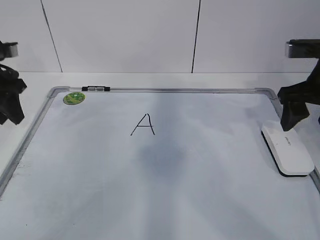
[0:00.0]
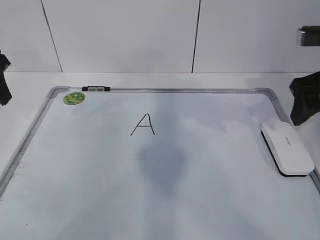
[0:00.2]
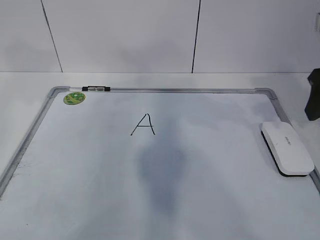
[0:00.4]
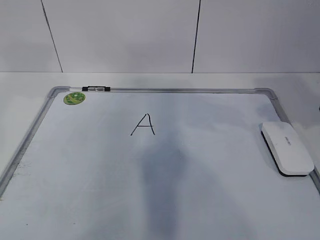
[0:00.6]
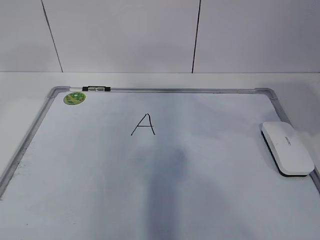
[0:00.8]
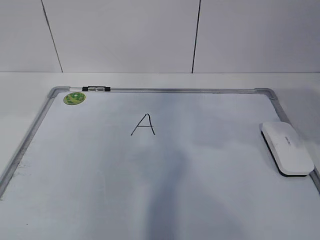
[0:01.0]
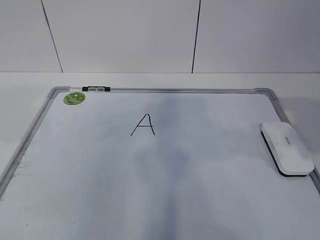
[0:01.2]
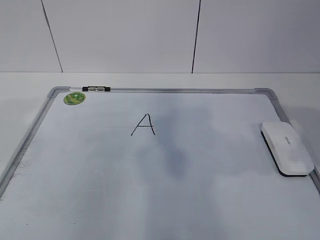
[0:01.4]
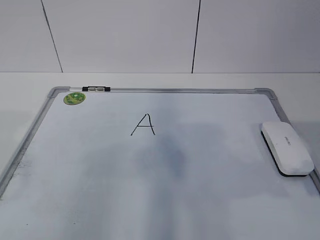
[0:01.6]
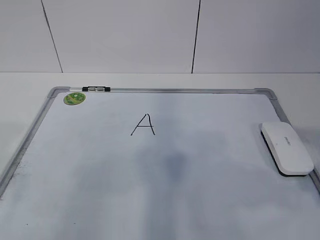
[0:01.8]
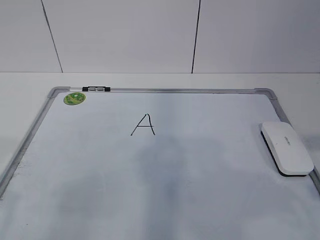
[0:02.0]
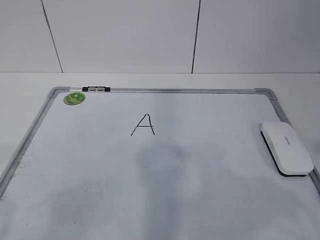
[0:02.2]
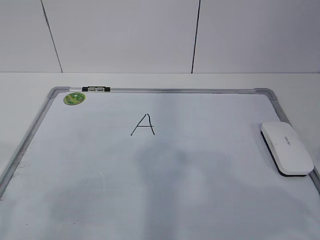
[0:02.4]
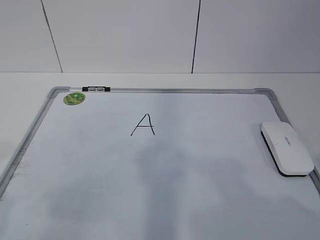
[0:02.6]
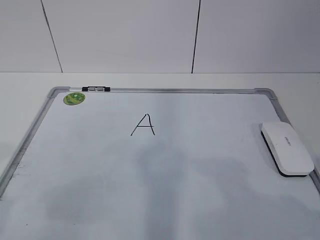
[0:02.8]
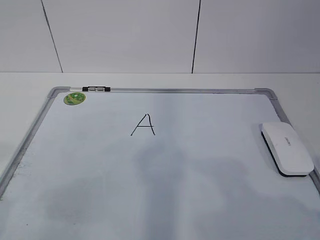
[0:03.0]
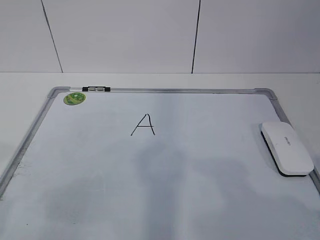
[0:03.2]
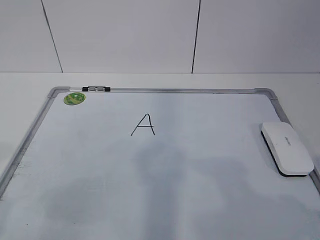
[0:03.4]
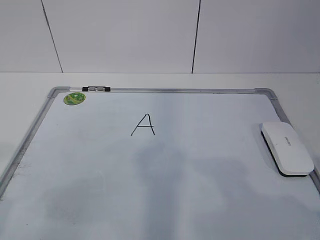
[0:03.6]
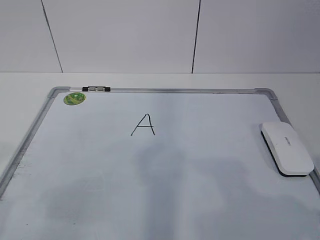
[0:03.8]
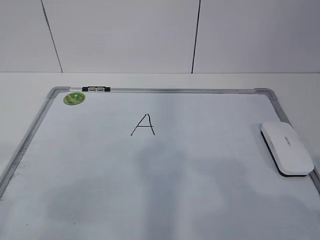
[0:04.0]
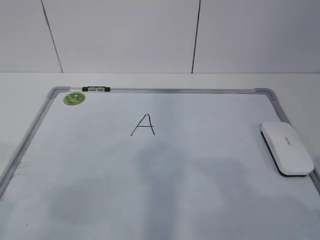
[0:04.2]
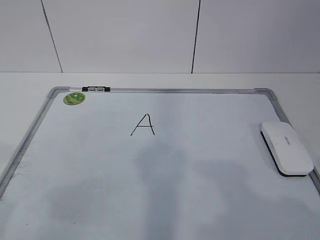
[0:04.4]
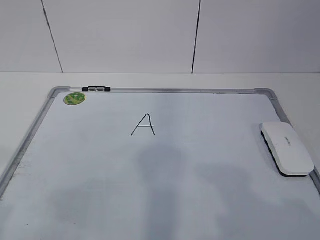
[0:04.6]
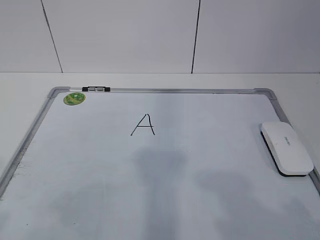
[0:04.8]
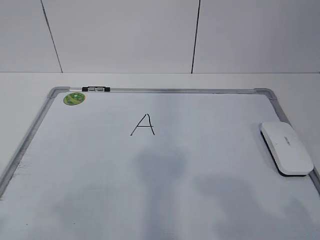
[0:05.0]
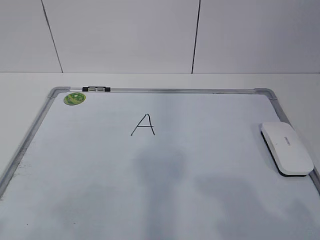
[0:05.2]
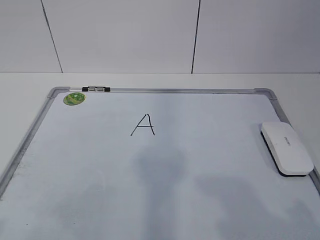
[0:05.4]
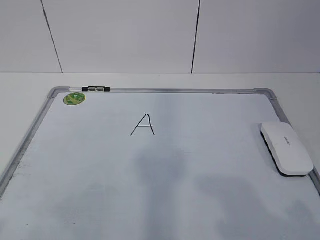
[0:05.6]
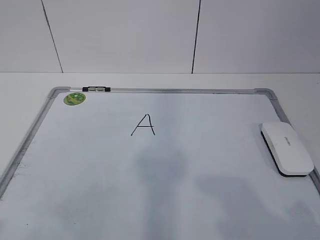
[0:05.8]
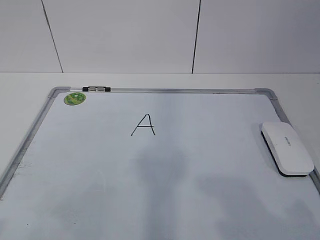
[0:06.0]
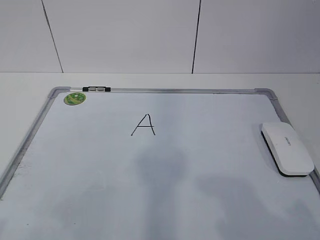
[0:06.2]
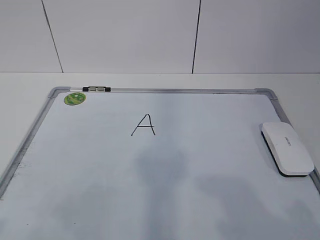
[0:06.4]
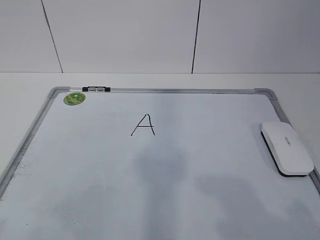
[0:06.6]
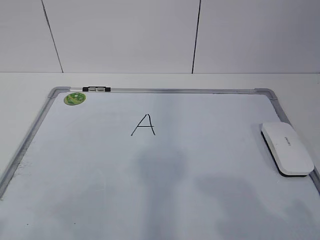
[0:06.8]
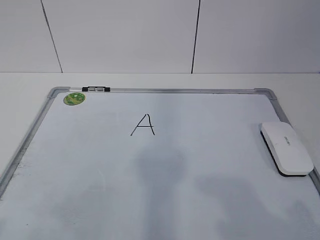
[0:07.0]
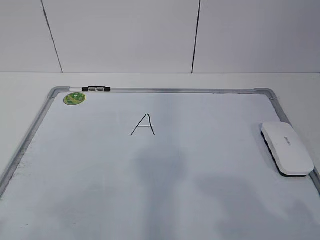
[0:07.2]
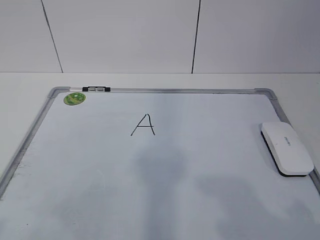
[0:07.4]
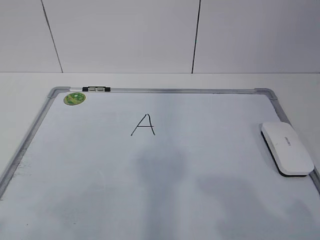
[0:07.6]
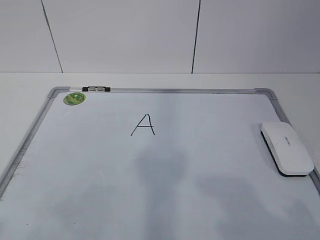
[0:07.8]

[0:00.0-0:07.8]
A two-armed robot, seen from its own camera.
Task of the whole recording: pick up the eraser on the blackboard and erase the letter "a".
0:00.0 to 0:01.6: The right gripper heads backward, covering about 20 cm, and closes up. Meanwhile the left gripper shifts approximately 30 cm backward and upward.
0:01.6 to 0:03.2: The right gripper is displaced backward by some 10 cm.
0:06.2 to 0:07.8: The two grippers keep their place.

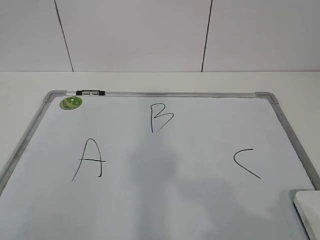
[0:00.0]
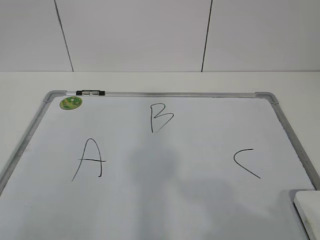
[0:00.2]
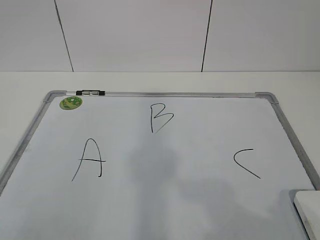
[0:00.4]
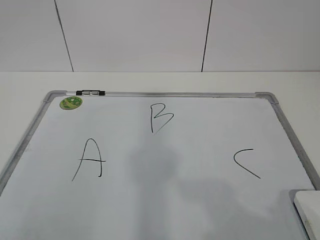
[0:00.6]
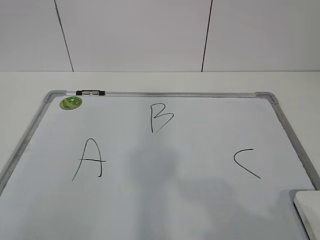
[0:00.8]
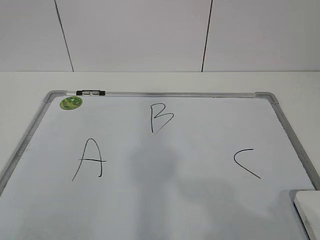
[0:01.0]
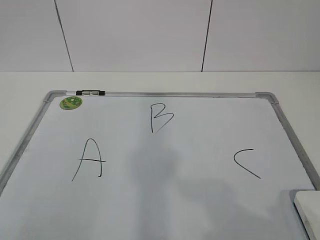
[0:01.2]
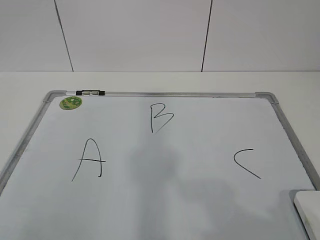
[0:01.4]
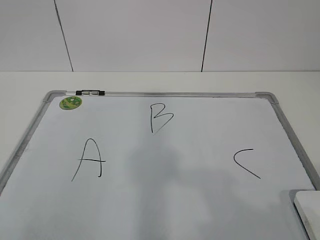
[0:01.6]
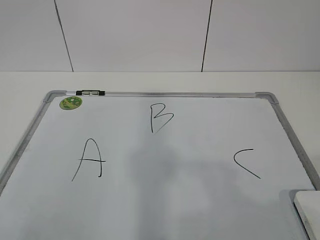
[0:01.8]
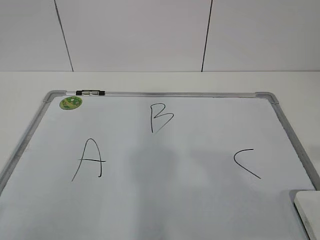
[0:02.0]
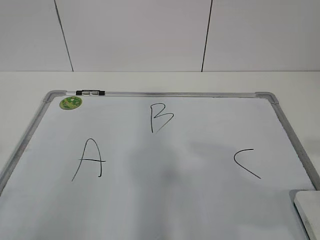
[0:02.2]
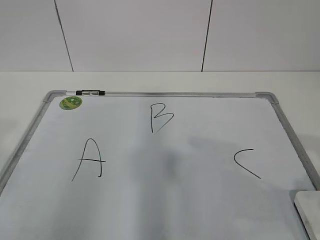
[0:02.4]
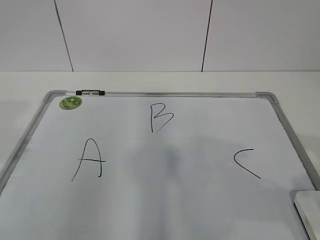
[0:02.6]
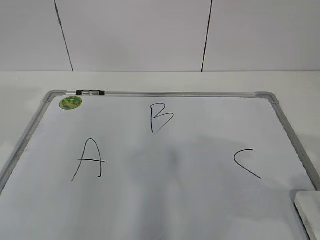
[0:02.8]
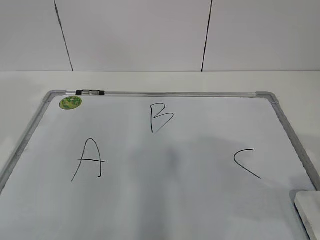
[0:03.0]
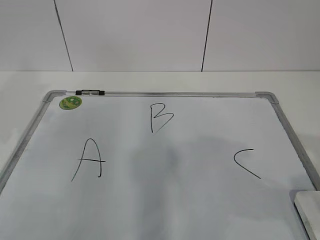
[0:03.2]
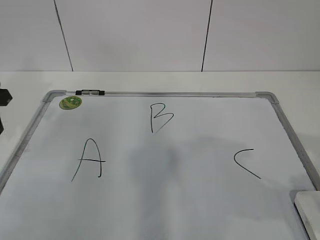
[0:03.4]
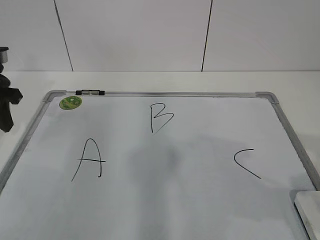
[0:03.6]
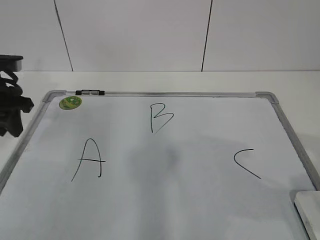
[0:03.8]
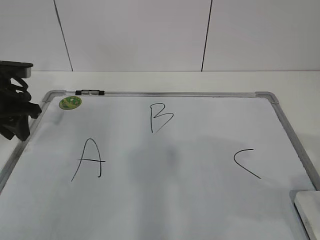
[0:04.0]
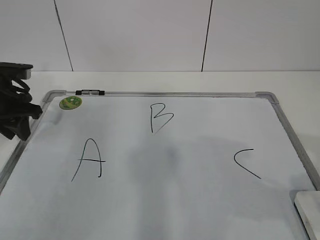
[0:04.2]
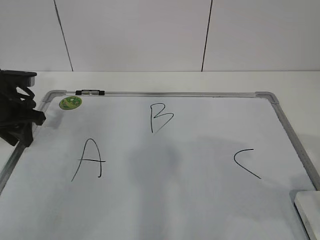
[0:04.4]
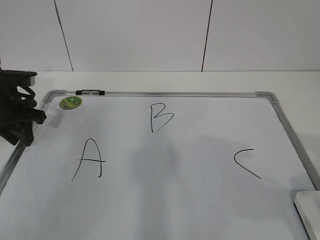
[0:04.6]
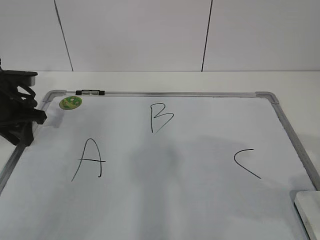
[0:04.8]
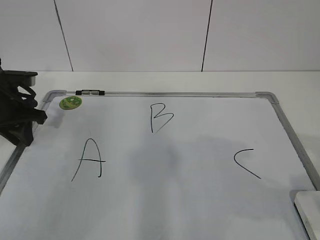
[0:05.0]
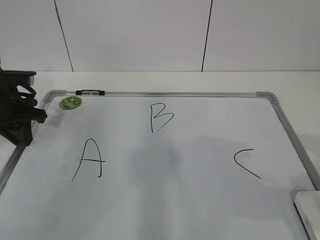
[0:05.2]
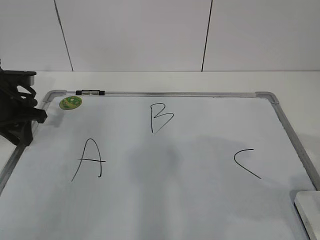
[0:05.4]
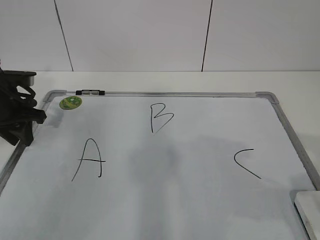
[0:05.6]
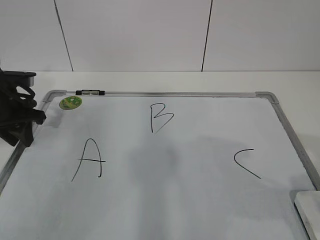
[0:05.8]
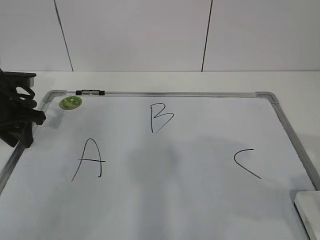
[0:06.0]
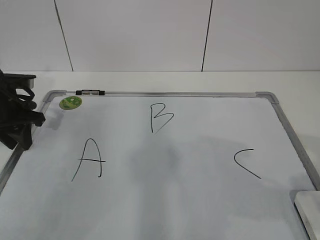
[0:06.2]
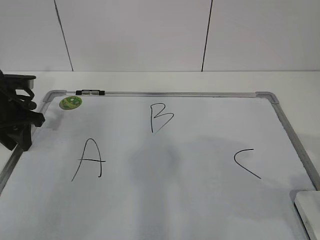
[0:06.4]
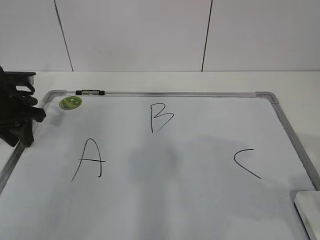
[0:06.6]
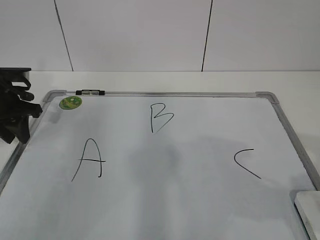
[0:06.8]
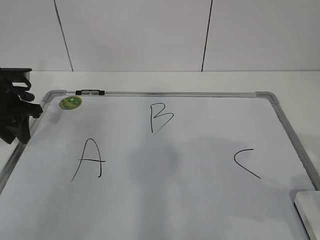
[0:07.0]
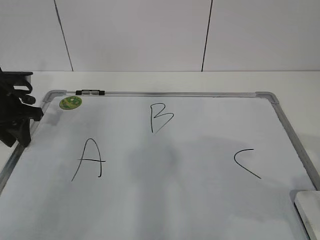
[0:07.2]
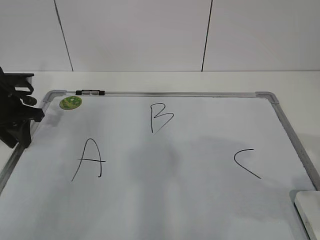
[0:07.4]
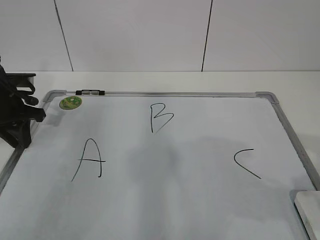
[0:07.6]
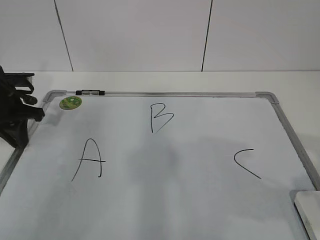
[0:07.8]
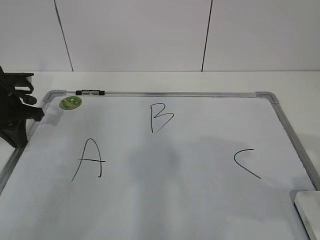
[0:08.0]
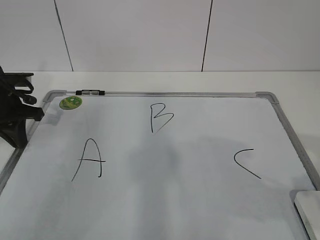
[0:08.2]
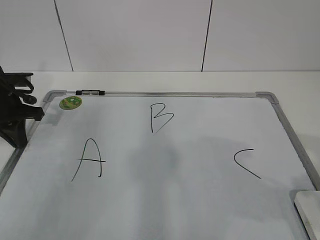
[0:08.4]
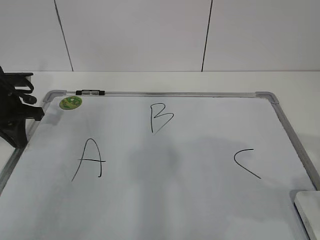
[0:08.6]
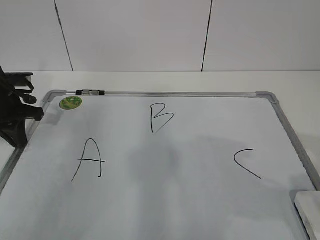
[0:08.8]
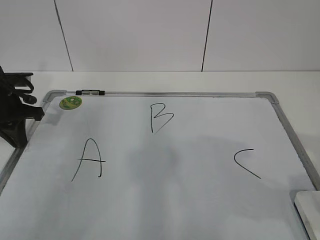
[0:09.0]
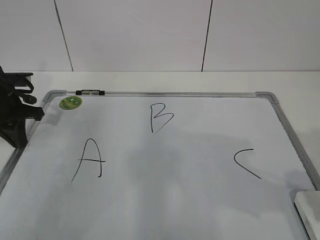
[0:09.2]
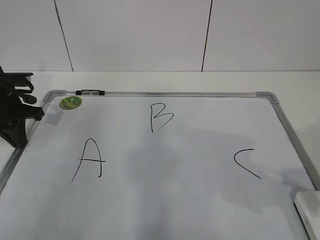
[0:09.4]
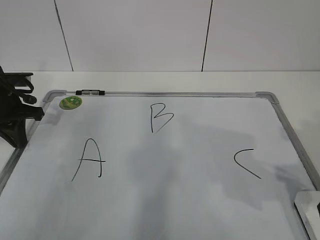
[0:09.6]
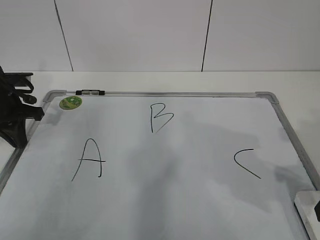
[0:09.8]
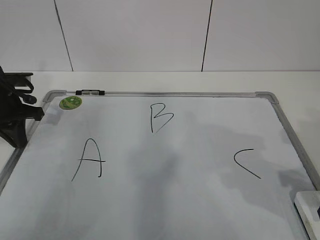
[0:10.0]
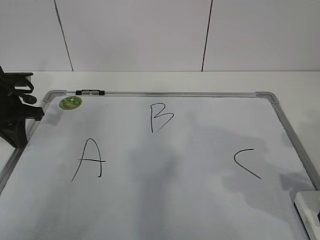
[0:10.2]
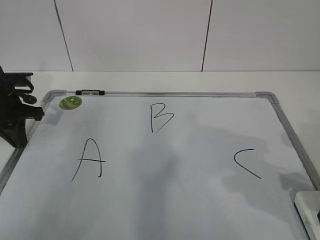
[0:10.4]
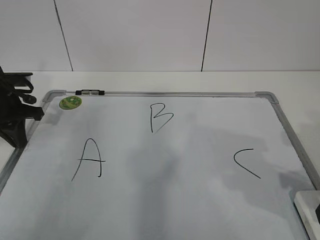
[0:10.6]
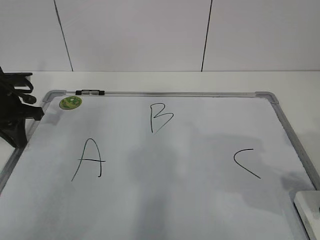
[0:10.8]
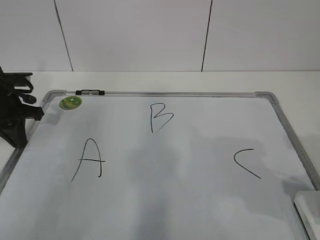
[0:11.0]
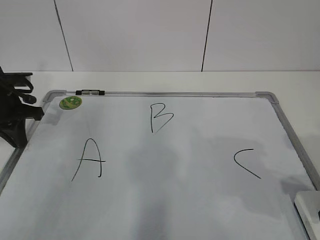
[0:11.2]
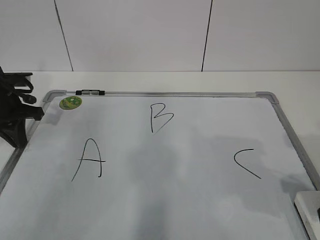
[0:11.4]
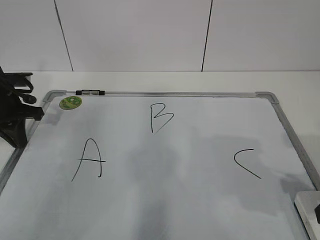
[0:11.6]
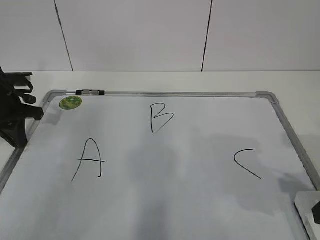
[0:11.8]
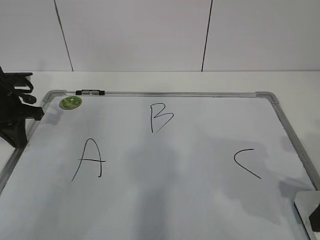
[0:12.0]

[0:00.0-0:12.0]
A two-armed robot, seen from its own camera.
Task of the whole recording: pick up the eraser on the blackboard and erase the letter "B".
Step, 0:00.0 to 0:04.0: Hold the drawing board steady with your left hand.
Step, 0:04.2 to 0:10.4: Grab the eraser with your right hand.
0:01.6 to 0:03.0: The right gripper is displaced forward by some 10 cm.
0:03.0 to 0:04.4: The left gripper heads downward and forward, covering roughly 20 cm.
0:06.0 to 0:07.6: The left gripper closes up.
0:07.6 to 0:09.0: The left gripper closes its fingers.

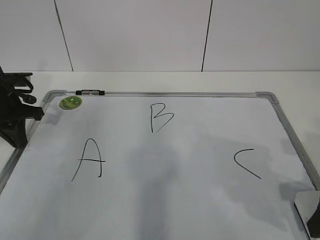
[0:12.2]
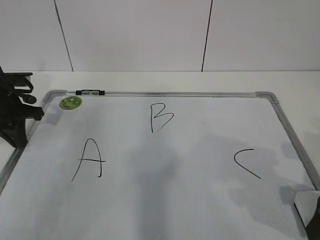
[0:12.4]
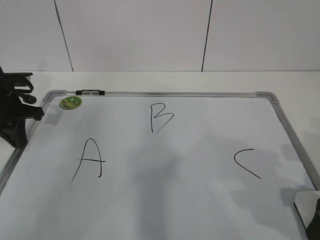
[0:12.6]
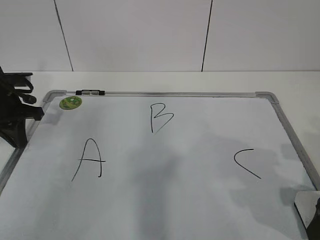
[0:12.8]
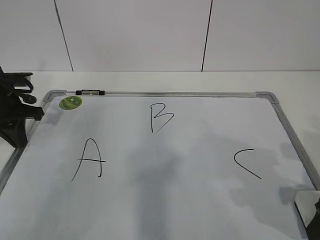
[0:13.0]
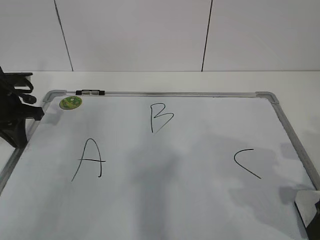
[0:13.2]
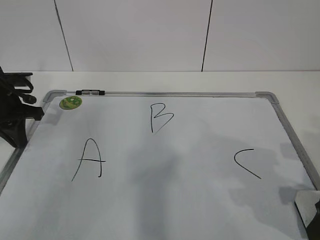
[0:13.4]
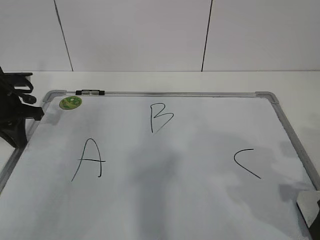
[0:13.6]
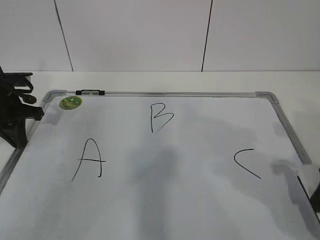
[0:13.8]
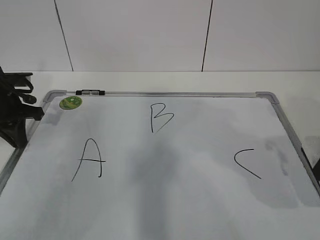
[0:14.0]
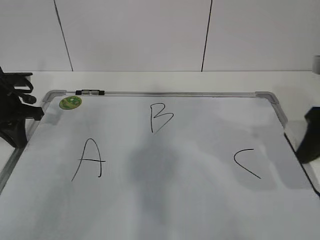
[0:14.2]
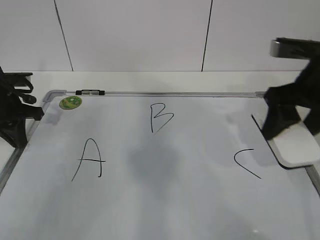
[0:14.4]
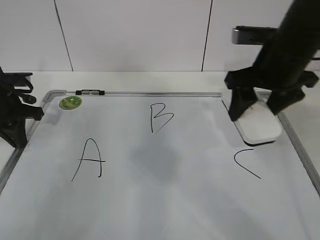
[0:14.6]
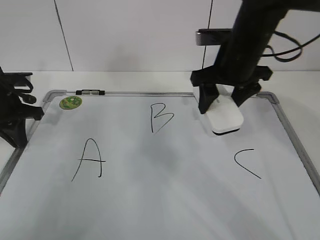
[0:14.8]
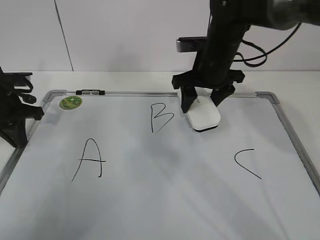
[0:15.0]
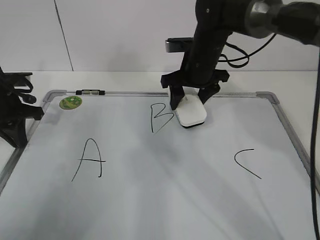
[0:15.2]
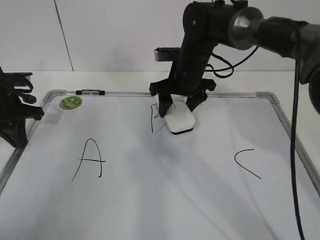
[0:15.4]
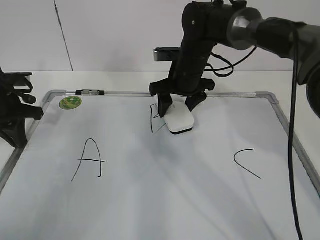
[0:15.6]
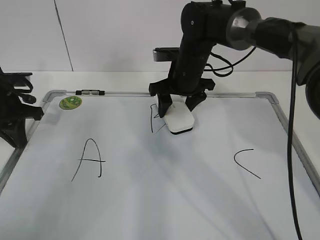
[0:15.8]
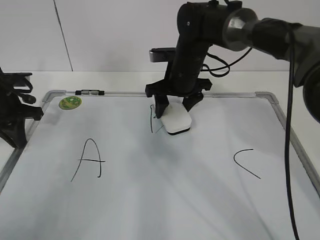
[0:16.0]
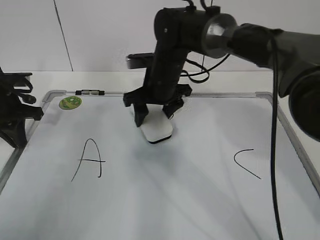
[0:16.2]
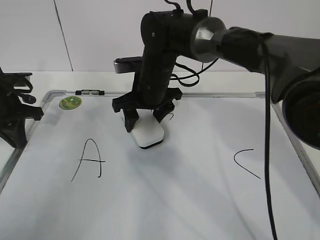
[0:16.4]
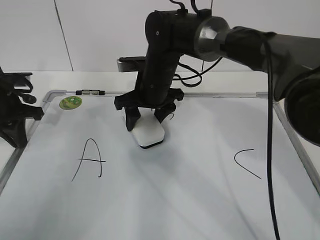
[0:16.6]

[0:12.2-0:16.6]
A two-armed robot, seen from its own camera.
Task of the whole recording: pick up the eraser on the blackboard and erase the letter "B".
0:13.6 to 0:15.2: The right gripper travels forward and to the left by approximately 35 cm.
0:15.2 to 0:16.6: The right gripper travels to the left by roughly 10 cm.
